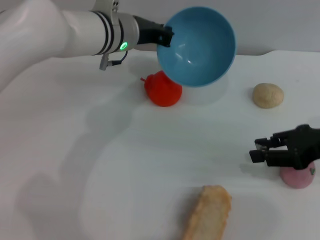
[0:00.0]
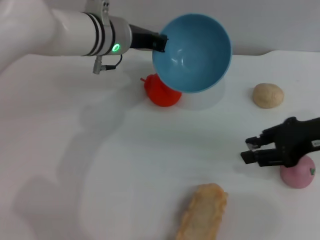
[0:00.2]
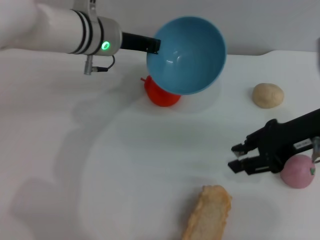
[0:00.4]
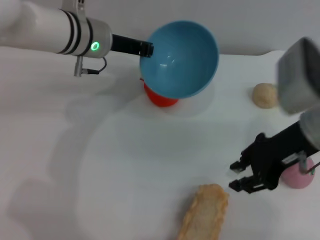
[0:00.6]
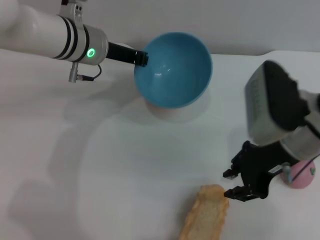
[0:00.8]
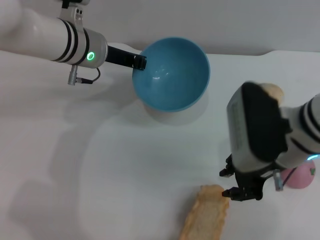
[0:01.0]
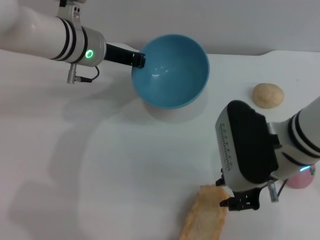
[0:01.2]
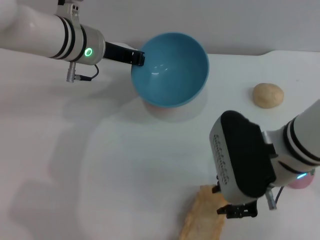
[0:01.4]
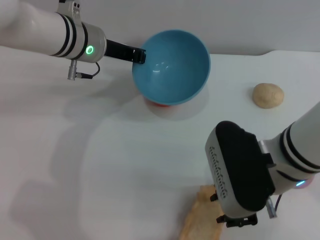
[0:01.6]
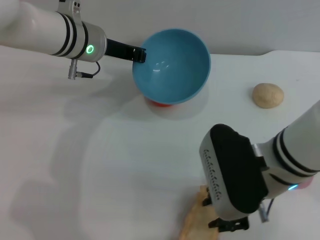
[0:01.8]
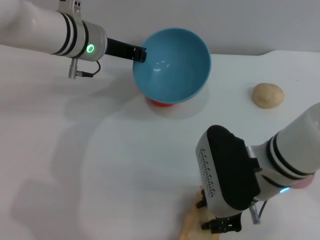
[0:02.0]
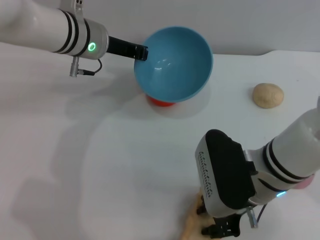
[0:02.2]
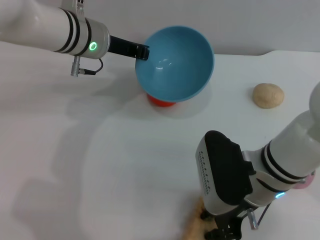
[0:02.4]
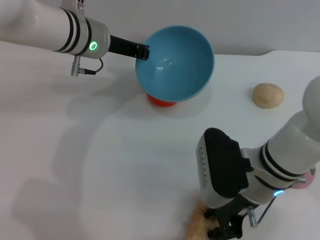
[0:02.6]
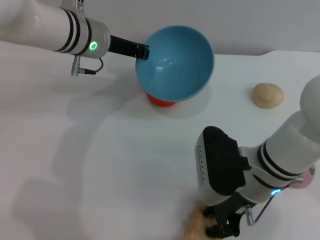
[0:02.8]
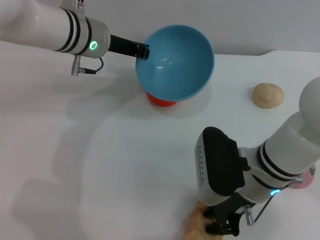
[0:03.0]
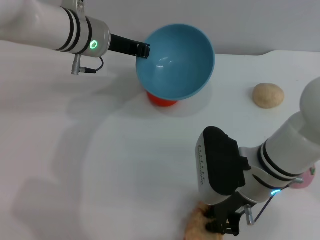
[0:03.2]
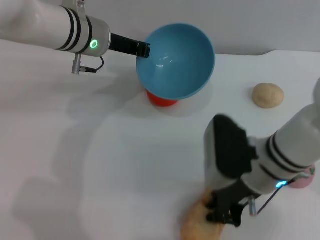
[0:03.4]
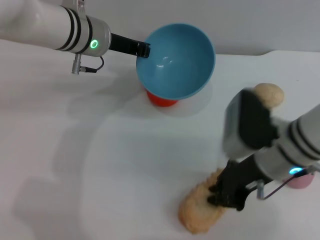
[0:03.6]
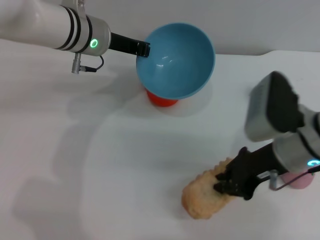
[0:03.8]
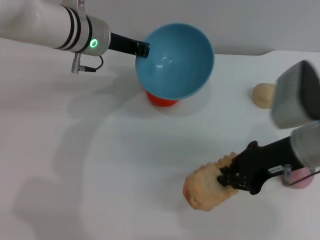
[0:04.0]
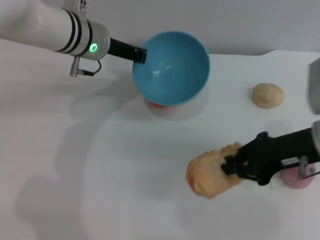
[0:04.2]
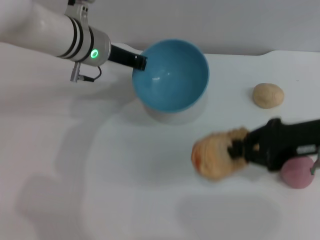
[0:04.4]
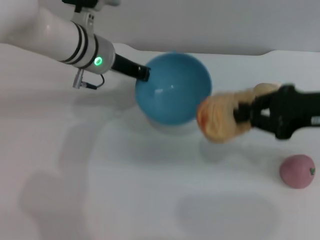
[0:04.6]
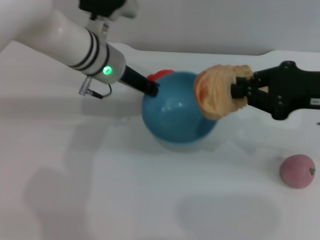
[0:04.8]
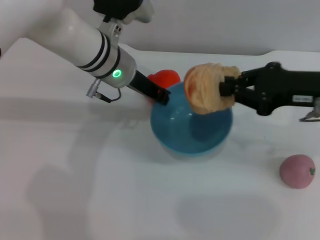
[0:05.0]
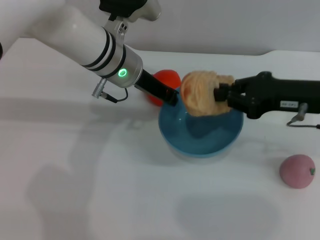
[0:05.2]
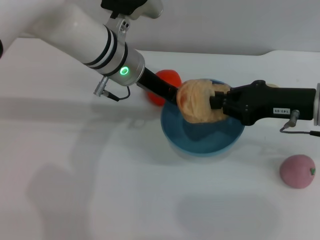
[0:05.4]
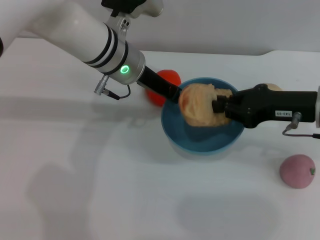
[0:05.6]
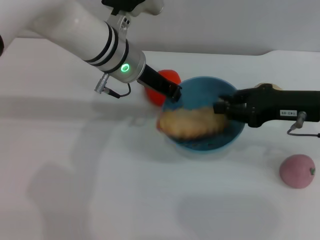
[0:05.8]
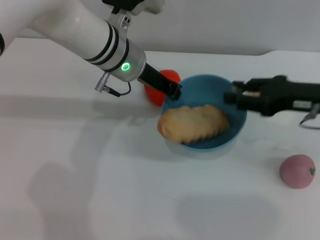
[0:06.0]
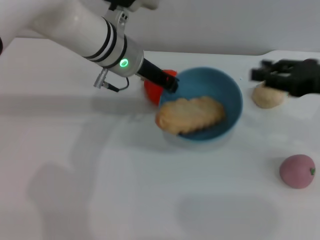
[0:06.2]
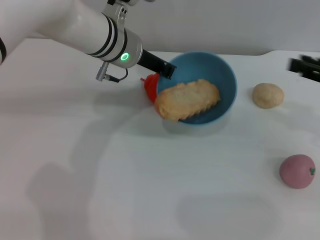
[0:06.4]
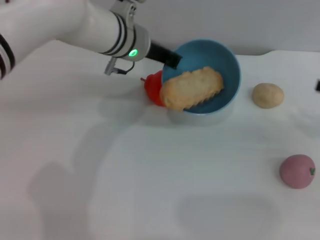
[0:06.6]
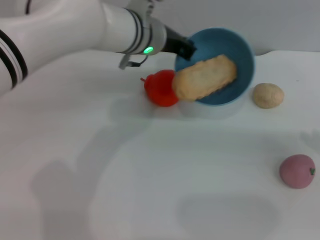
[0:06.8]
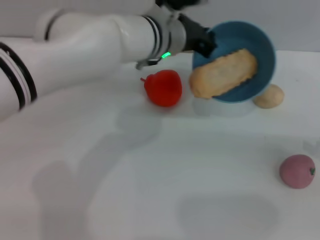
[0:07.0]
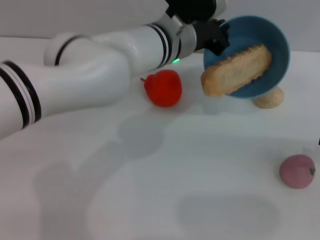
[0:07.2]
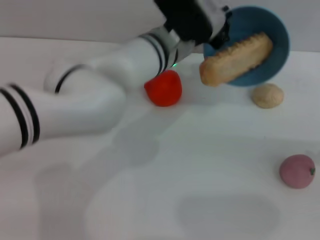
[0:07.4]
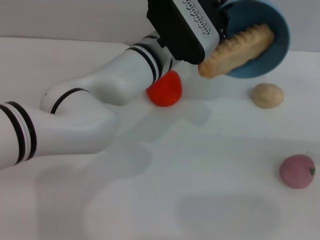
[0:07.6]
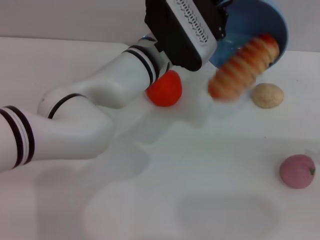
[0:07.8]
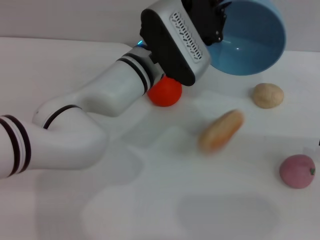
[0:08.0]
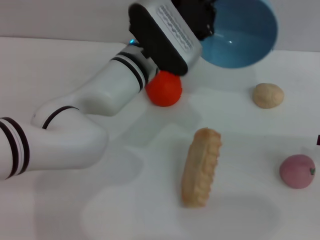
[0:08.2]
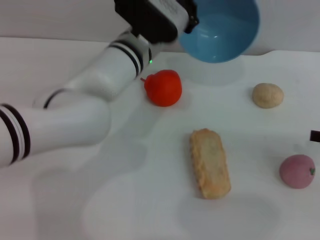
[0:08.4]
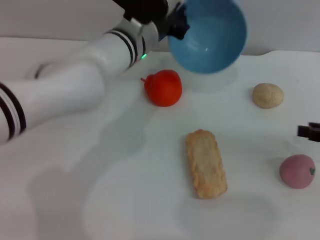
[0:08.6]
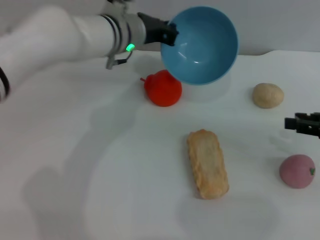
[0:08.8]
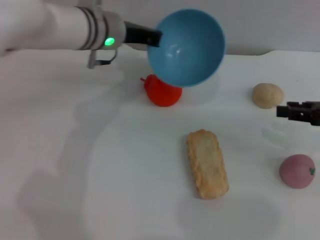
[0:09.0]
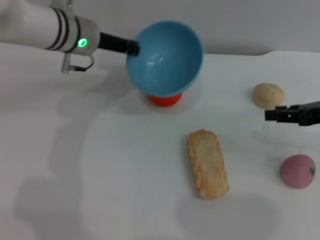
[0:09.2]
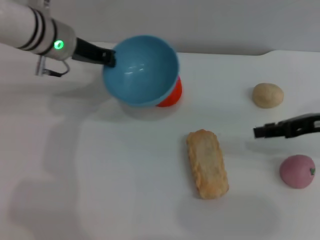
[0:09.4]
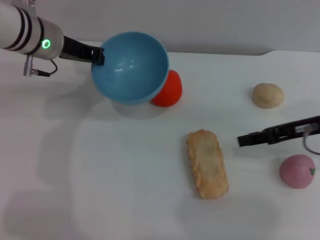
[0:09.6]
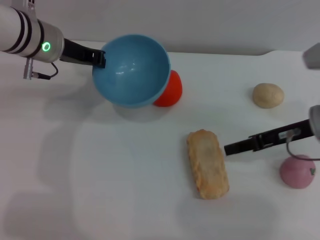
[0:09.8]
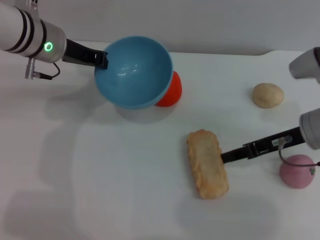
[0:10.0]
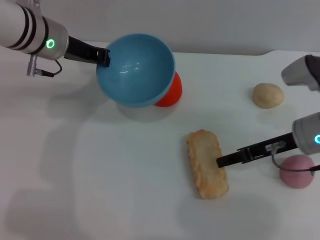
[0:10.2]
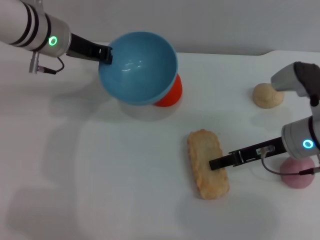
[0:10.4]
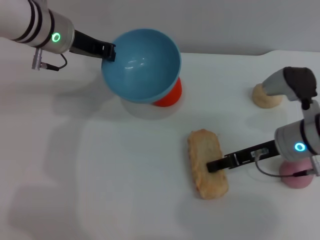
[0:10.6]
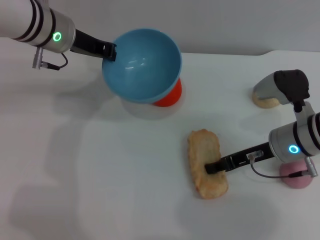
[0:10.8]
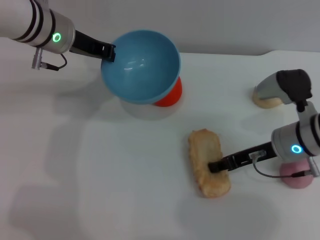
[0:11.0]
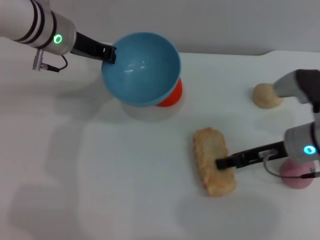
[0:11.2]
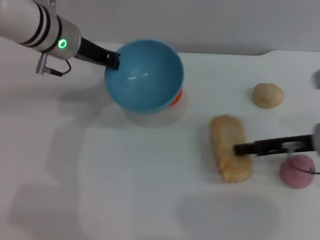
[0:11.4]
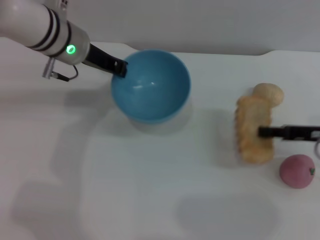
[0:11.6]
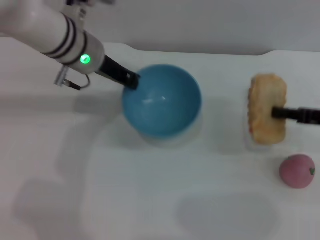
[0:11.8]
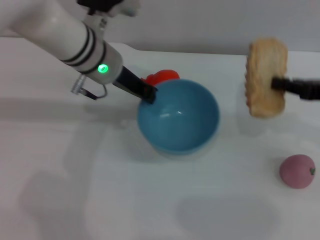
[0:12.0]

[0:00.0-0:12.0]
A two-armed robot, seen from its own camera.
Task of the whole recording: put the bread into the blue bowl and pour it out repeatedly.
Step, 0:00.0 to 0:03.6: Pick up the bread with the right gripper.
Step, 0:03.8 to 0:06.0: Place the bread into the bowl.
Step, 0:06.2 to 0:08.0: Pour the bread out of the bowl.
Step, 0:08.4 to 0:11.4: Pick up the bread with the right gripper.
0:00.0 to 0:01.6: The left gripper ends up about 5 cm from where it was, while the right gripper heads to the left, covering some 15 cm.
0:01.6 to 0:03.0: The right gripper moves downward, some 5 cm.
0:03.0 to 0:04.4: The right gripper is displaced to the right and upward by about 15 cm, and closes.
0:04.4 to 0:06.0: The right gripper opens, while the left gripper goes about 5 cm to the right.
0:06.0 to 0:07.6: The right gripper heads to the right and backward, covering some 15 cm, while the left gripper travels to the right by some 5 cm.
0:07.6 to 0:09.0: The right gripper heads to the left and forward, covering some 10 cm, while the left gripper is displaced to the left by some 10 cm.
0:09.0 to 0:10.4: The right gripper is displaced to the left and downward by about 15 cm. Meanwhile the left gripper goes about 5 cm to the left.
0:10.4 to 0:12.0: The right gripper heads to the right and upward, covering roughly 10 cm, and closes its fingers; the left gripper moves to the right, roughly 5 cm.

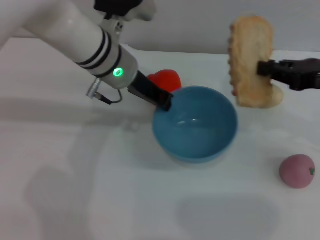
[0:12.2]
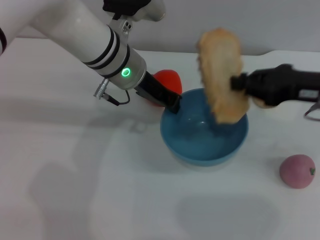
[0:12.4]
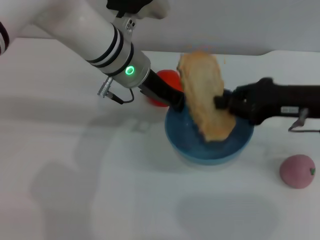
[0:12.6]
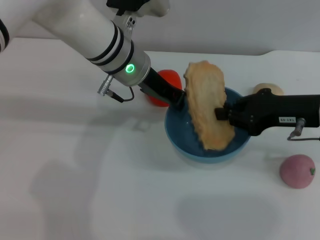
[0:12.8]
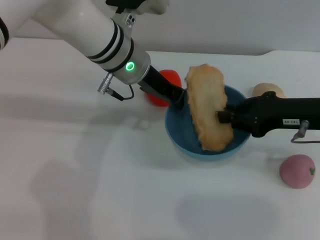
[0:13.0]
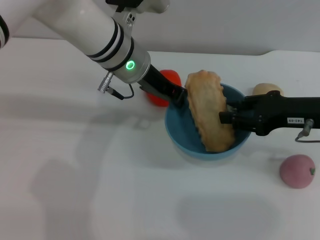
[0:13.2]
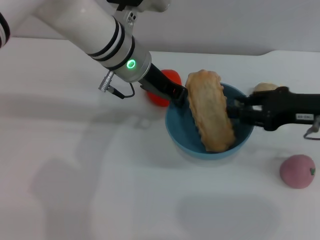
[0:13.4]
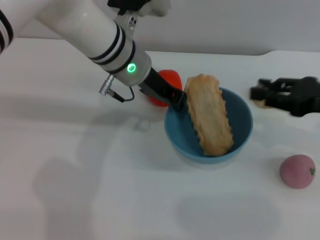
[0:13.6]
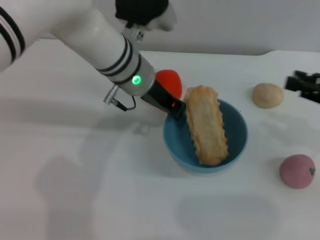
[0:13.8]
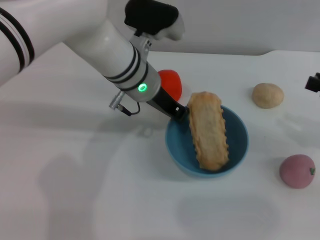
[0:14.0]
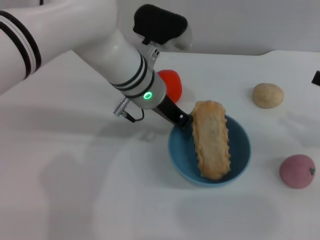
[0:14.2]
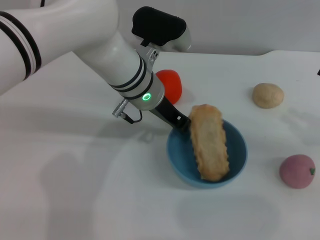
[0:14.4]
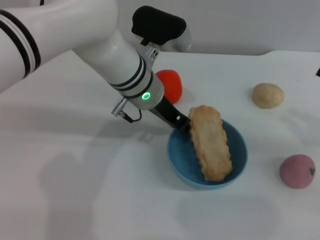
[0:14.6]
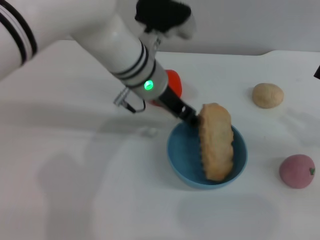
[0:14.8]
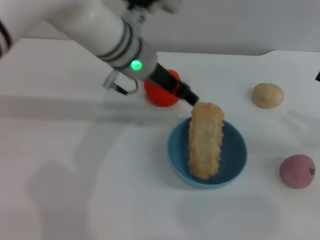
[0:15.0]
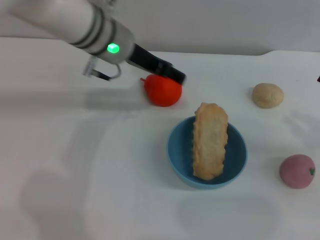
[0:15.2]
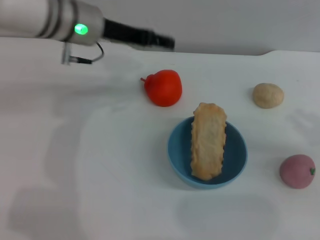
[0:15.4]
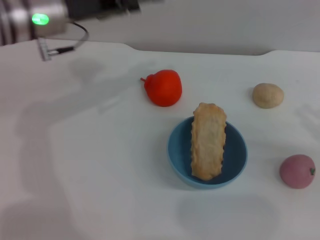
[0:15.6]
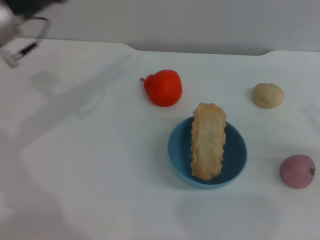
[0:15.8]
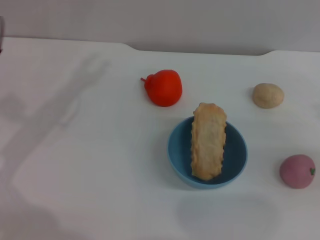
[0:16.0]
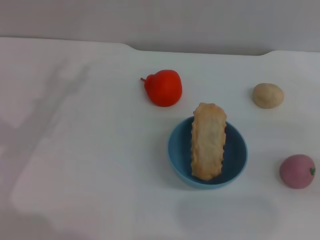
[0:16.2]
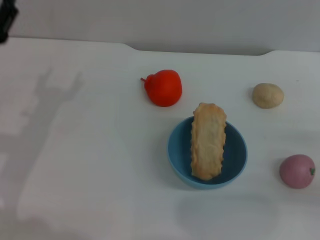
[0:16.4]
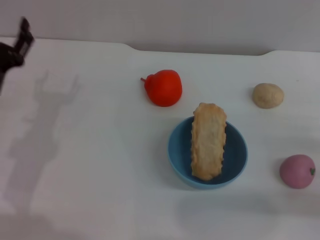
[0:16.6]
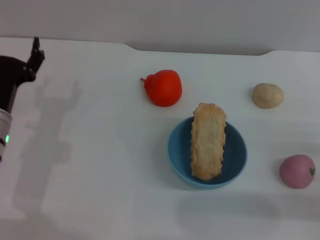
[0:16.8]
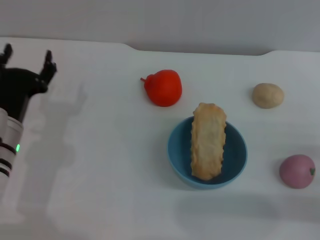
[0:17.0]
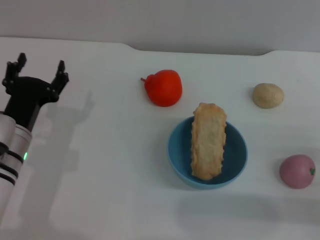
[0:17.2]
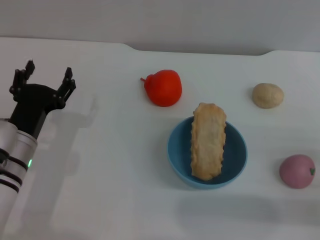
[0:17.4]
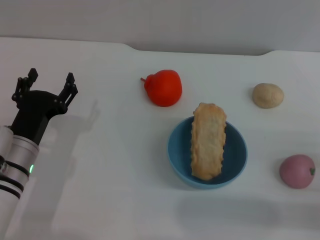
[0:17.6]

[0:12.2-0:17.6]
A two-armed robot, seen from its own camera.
Task of the whole recording: put the bread into the blue bowl and pour it out repeatedly.
Step, 0:12.2 to 0:13.4: Place the bread into the bowl.
Step, 0:13.6 to 0:14.8: Place the bowl on the table.
0:12.2 to 0:13.6: The right gripper opens up.
0:13.6 to 0:15.0: The right gripper moves to the right, approximately 5 cm. The left gripper opens its fingers.
0:15.0 to 0:16.2: The left gripper heads to the left and backward, covering some 25 cm, and opens up; the right gripper moves roughly 5 cm.
0:16.2 to 0:17.6: The left gripper travels downward, to the right and backward by roughly 15 cm; the right gripper is displaced downward and backward by some 10 cm.

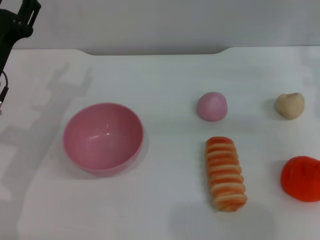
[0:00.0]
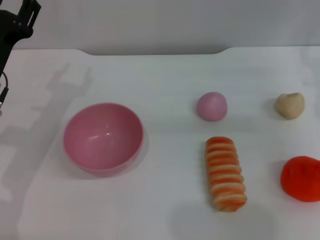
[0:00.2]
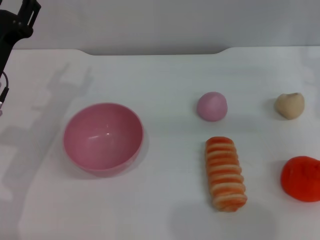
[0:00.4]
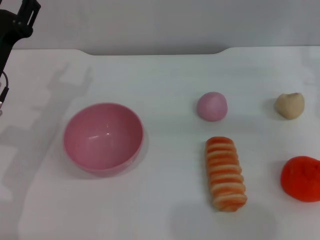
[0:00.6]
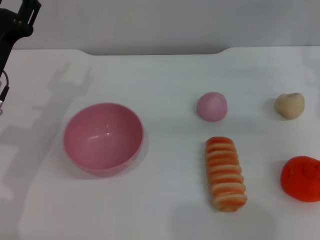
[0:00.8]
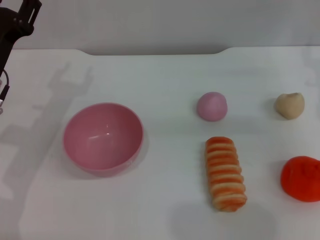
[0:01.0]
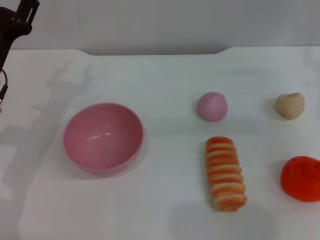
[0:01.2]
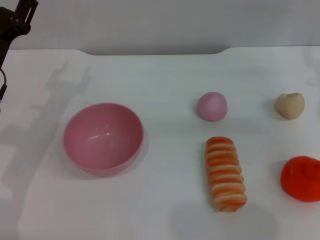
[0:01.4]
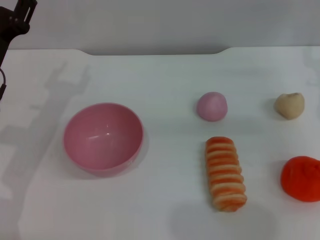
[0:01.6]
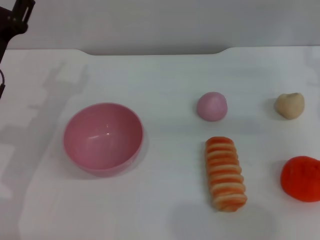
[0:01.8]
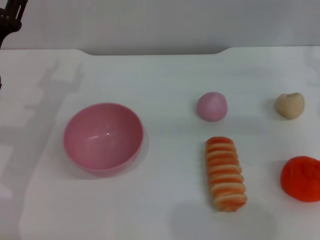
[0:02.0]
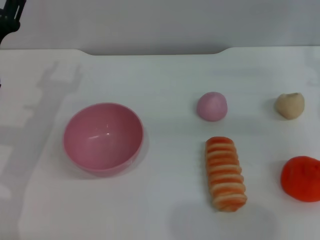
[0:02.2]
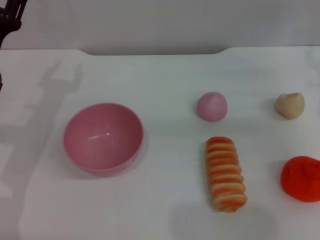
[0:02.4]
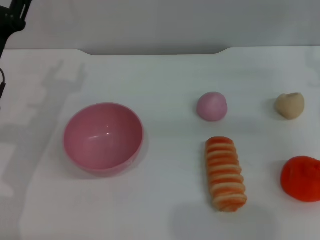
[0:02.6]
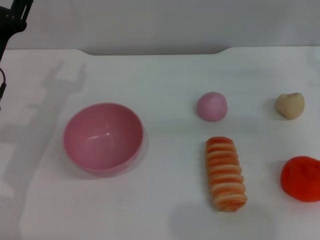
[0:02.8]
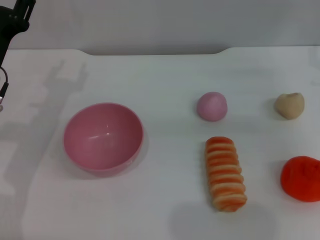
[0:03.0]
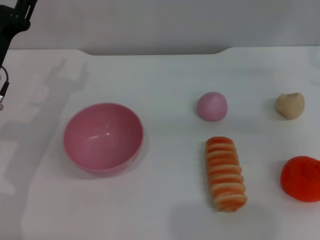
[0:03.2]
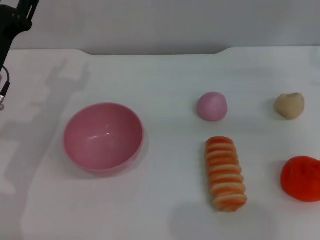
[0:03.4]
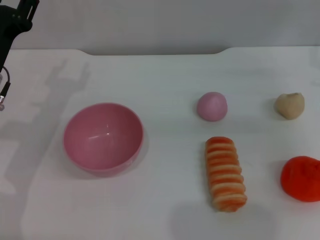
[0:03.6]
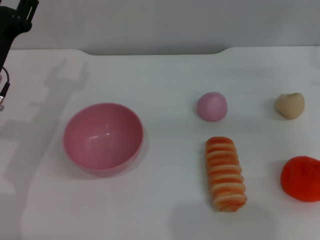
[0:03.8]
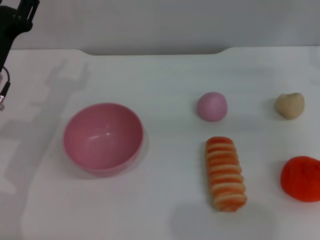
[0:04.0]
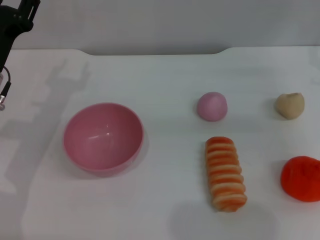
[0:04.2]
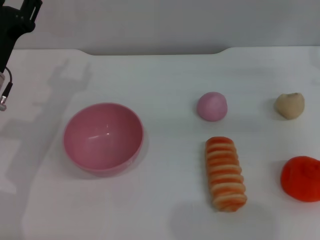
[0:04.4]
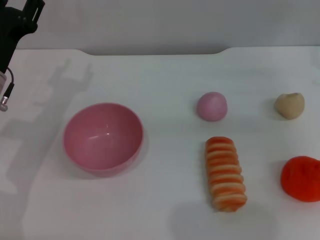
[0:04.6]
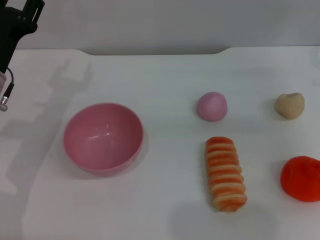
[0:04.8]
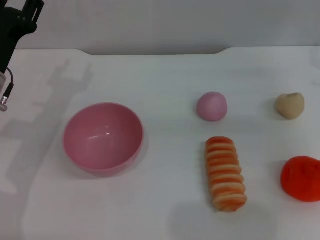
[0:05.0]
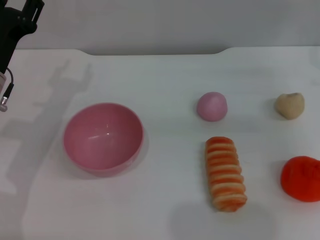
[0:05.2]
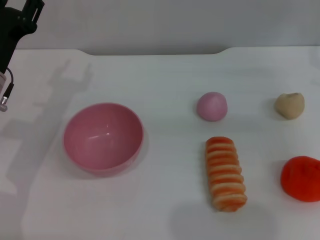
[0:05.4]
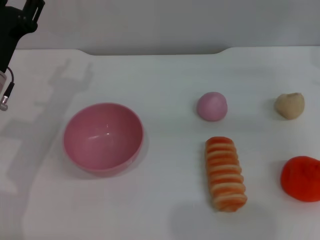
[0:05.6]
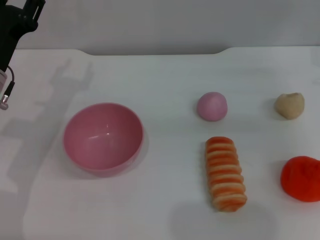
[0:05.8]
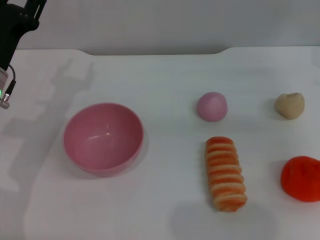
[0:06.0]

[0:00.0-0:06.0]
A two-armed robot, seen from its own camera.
Task of the whole recording: put the bread into the pink bowl and pour it out repeatedly.
0:00.0 to 0:01.6: Both grippers stay about where they are.
0:01.6 to 0:04.4: Both grippers stay about where they are.
0:04.4 to 0:06.0: Neither gripper changes place.
